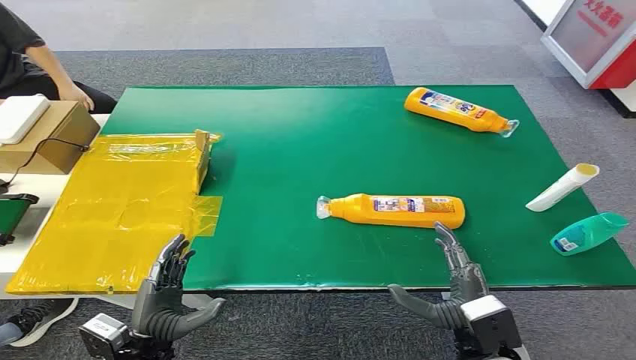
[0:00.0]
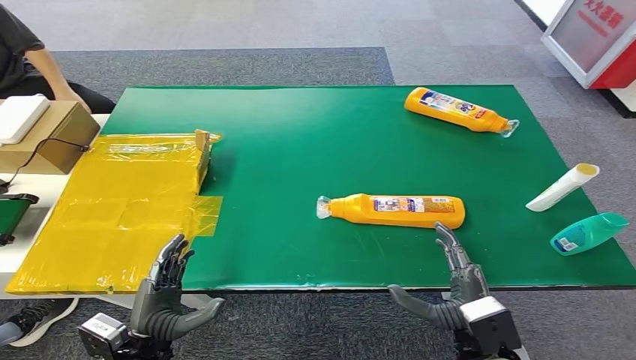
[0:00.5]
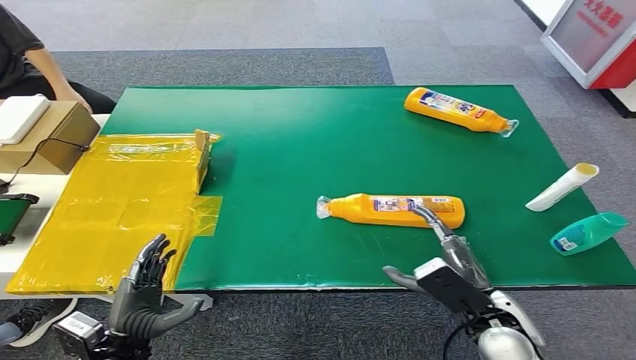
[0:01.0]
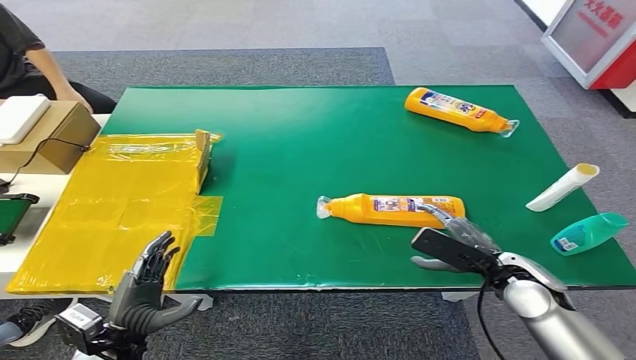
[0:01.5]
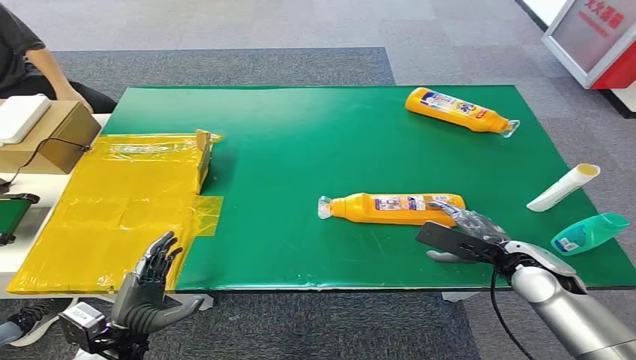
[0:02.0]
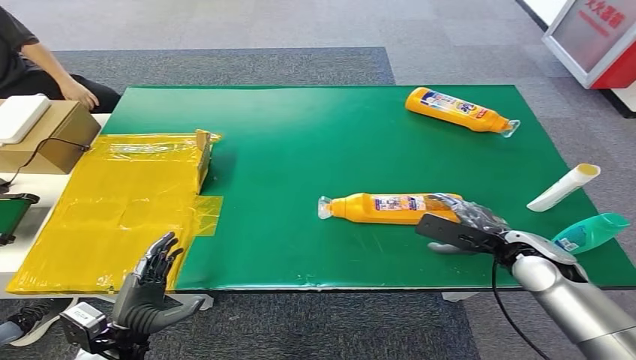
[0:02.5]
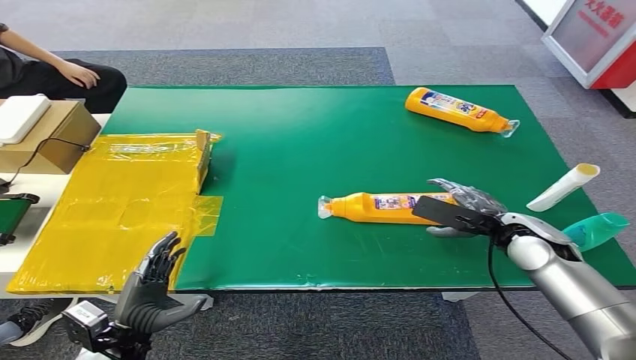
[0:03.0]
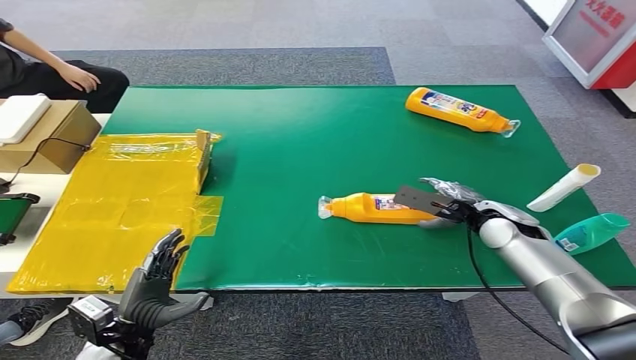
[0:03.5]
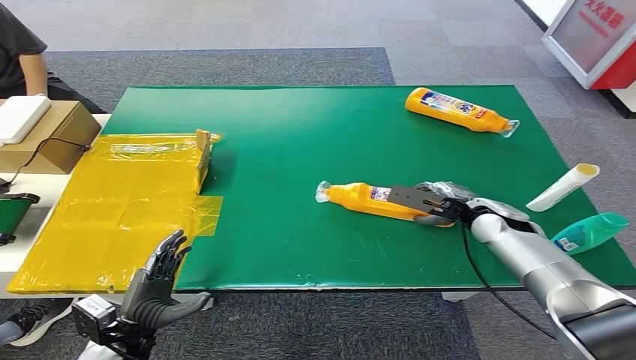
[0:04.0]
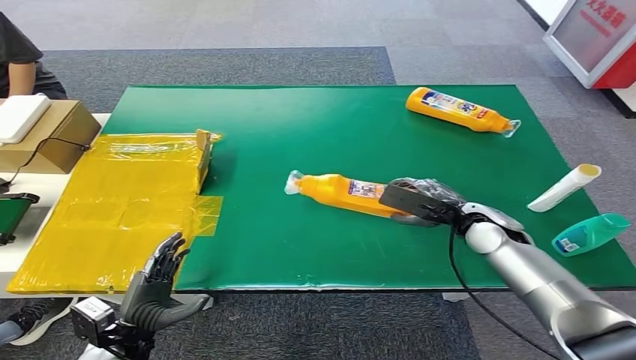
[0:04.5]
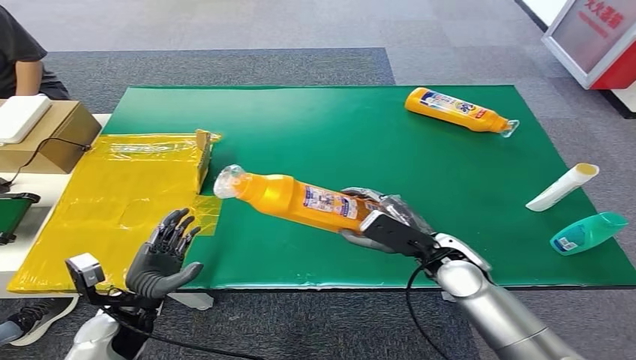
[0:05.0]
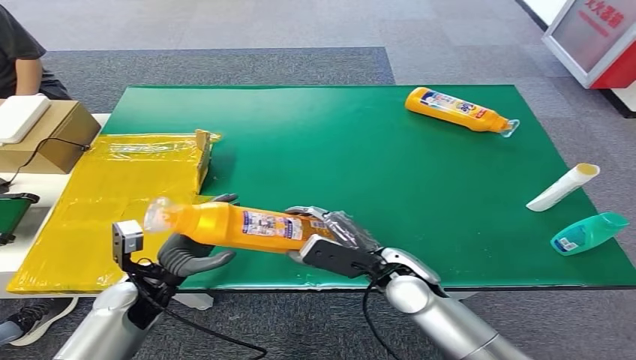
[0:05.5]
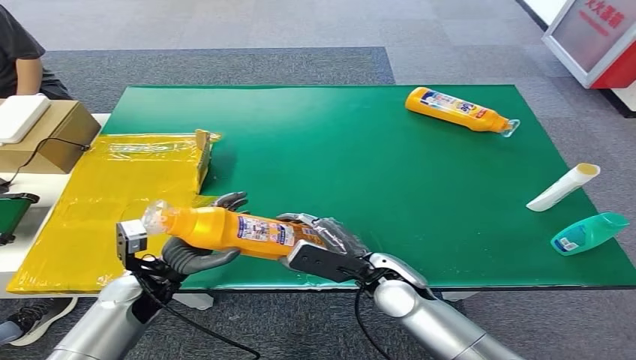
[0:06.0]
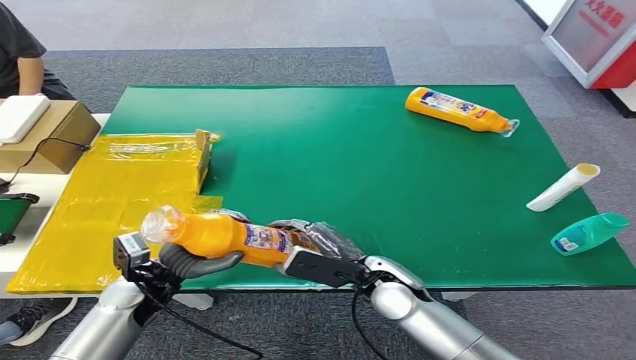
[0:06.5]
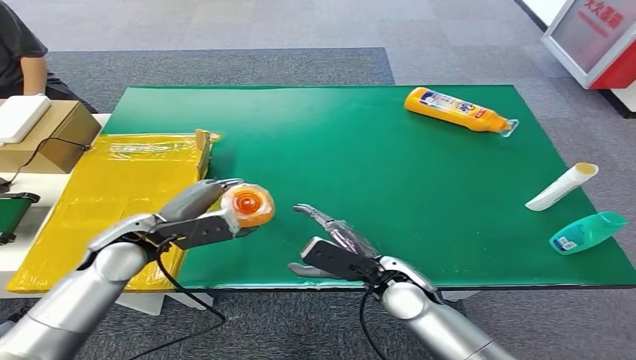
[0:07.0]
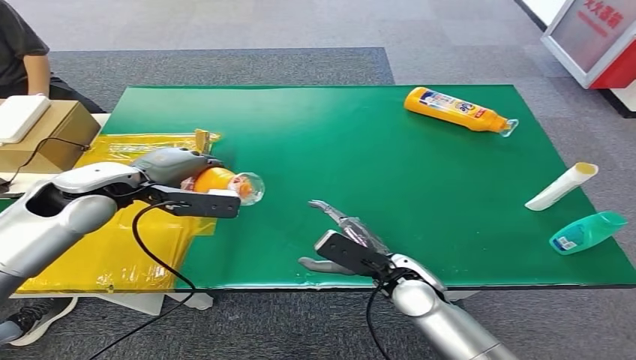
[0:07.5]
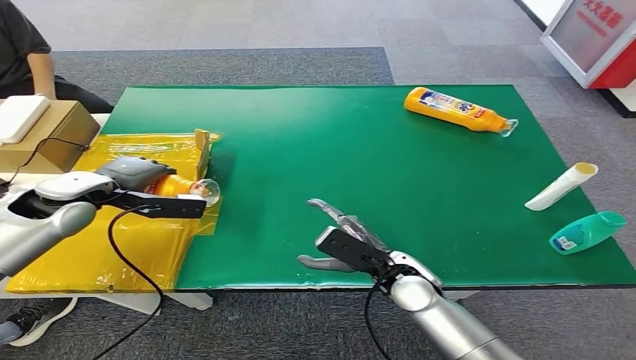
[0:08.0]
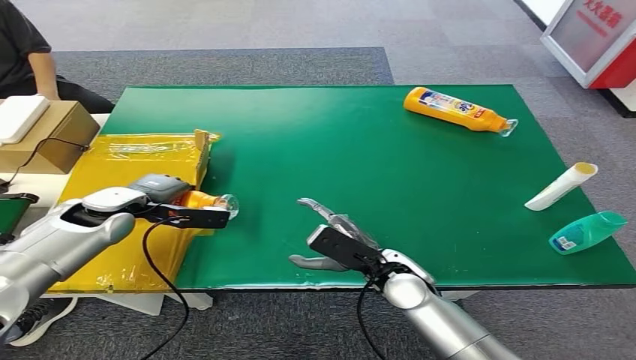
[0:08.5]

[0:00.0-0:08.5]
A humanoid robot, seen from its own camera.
Step, 0:00.0 to 0:05.0: Pick up the bottle from the table.
Step, 0:05.5 to 0:08.5: Turn the bottle to the front side.
0:02.0 to 0:04.0: The right hand travels forward by about 10 cm.
0:04.0 to 0:06.5: The right hand moves to the left and backward, approximately 25 cm, while the left hand is displaced forward and upward by some 10 cm.
0:06.5 to 0:08.5: The left hand shifts some 15 cm forward and upward.
